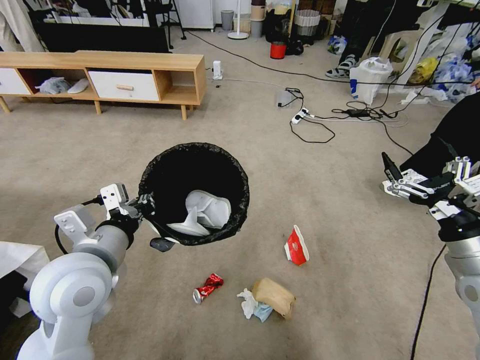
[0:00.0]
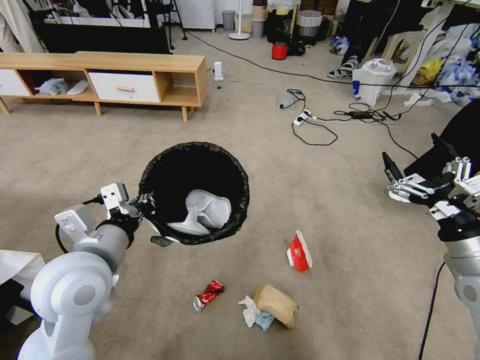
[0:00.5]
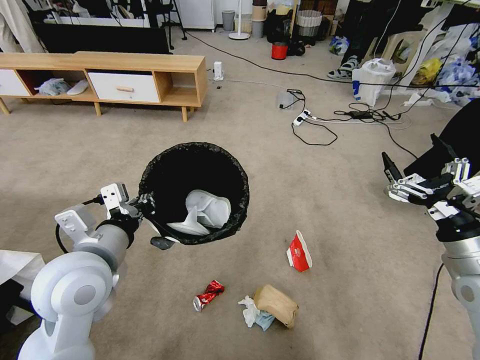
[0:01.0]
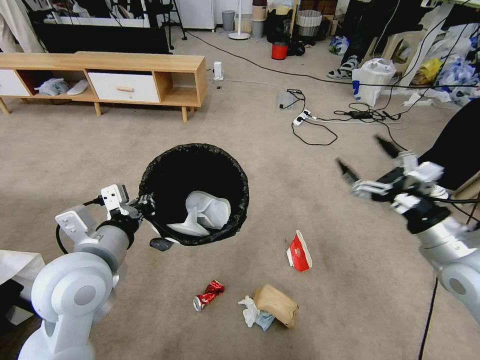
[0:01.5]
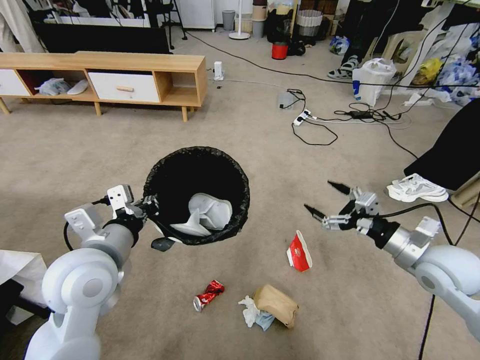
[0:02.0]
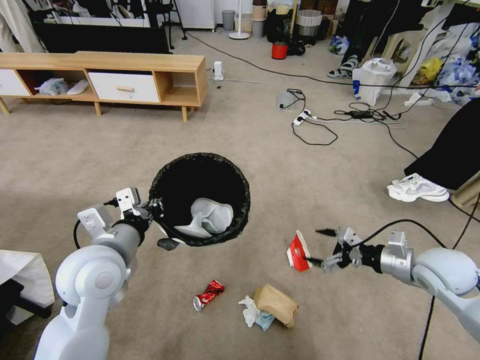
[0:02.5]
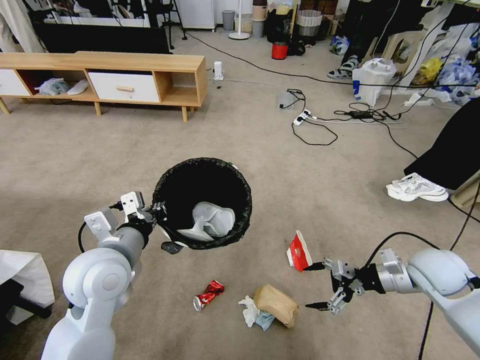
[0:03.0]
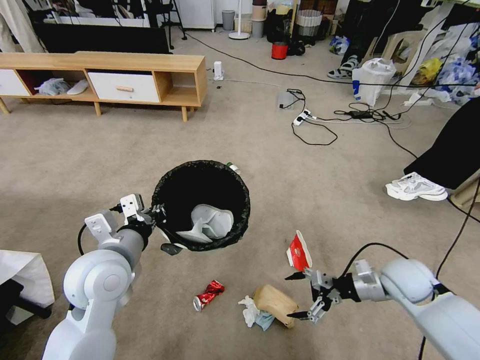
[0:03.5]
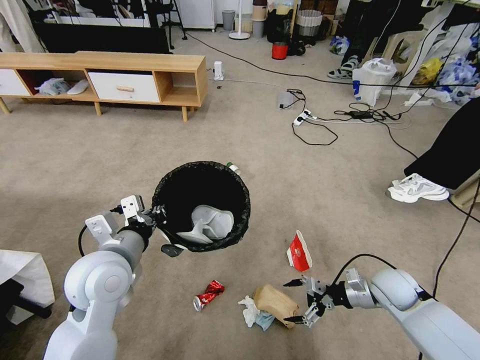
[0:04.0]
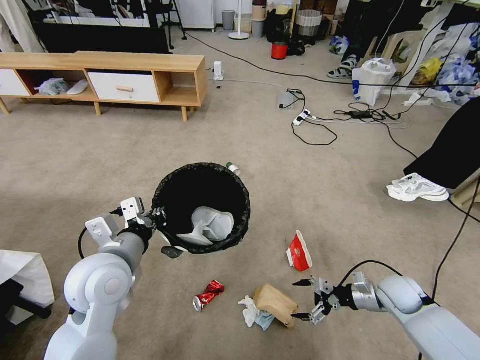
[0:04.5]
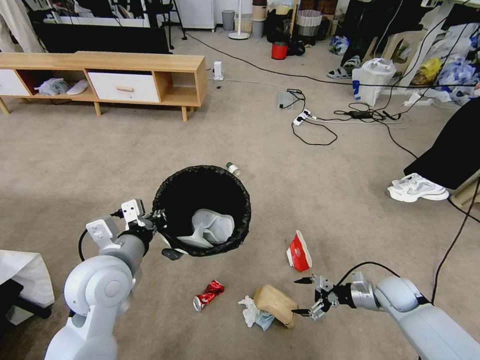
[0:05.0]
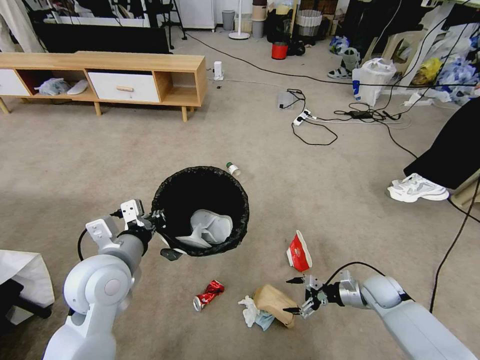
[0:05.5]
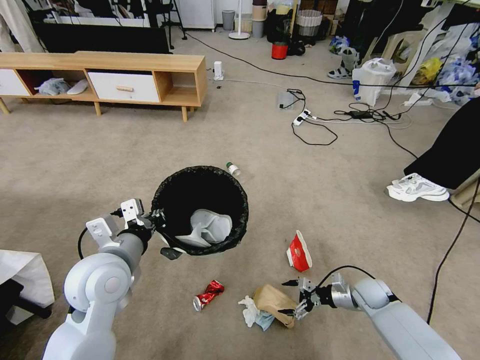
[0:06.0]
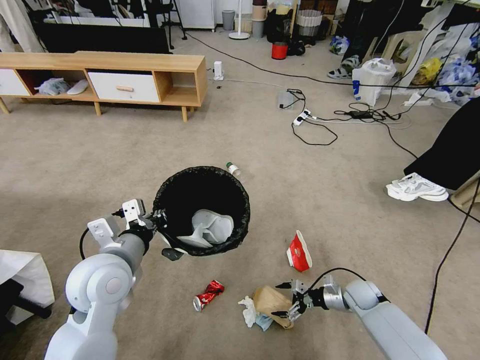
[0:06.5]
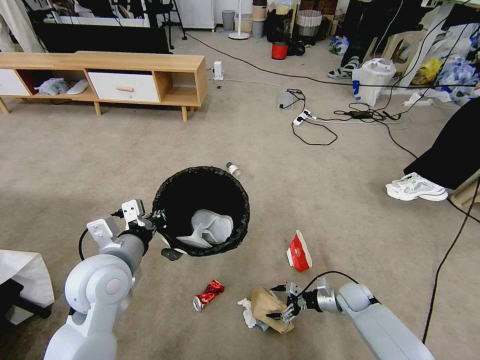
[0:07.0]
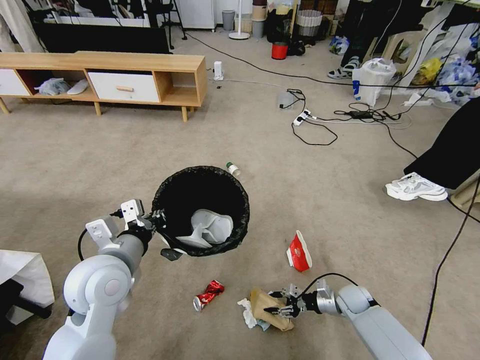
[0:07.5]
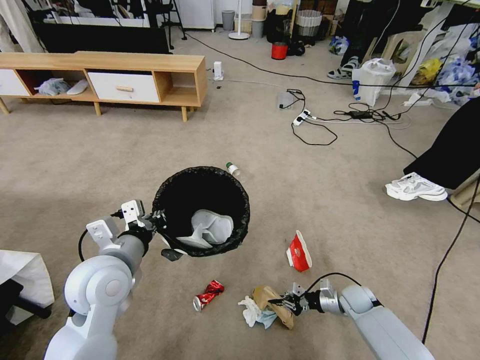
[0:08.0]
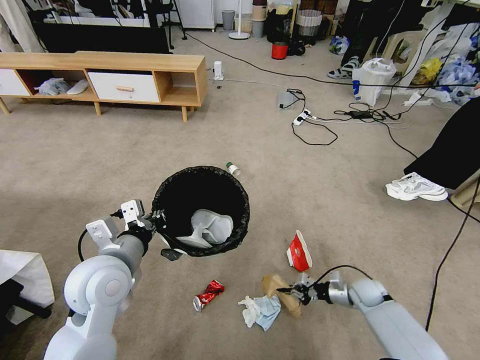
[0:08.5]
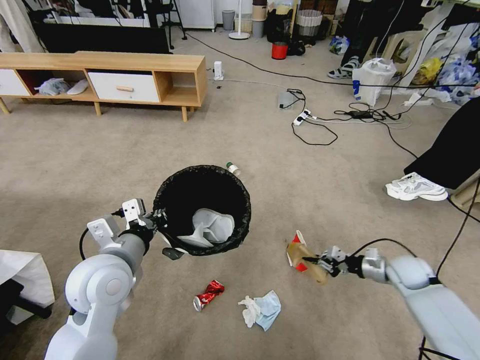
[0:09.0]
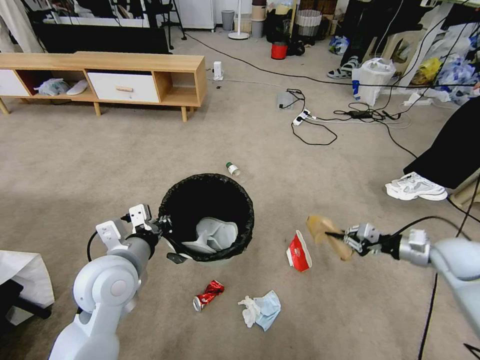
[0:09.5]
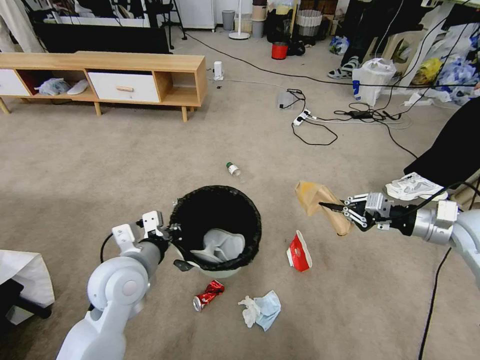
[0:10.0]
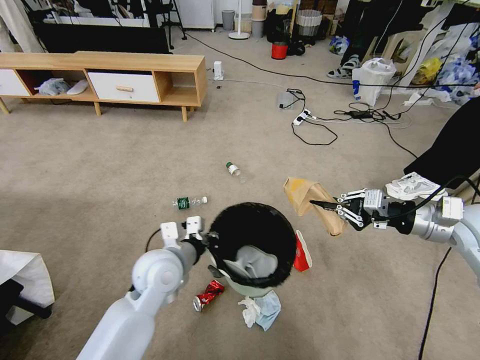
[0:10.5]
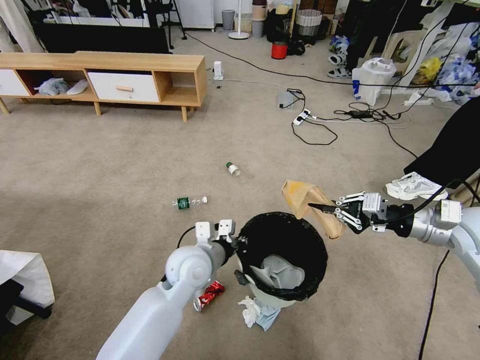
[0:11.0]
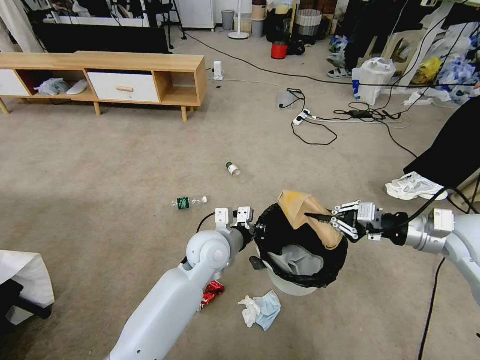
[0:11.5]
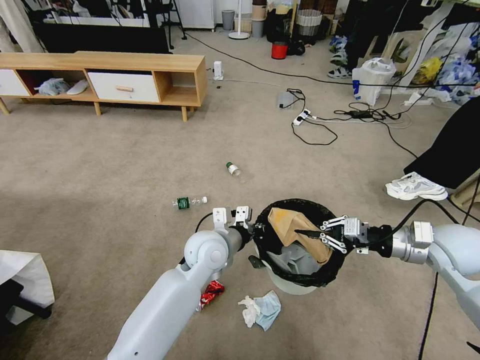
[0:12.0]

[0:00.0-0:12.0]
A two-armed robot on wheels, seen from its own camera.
Task of the whole recording: Pick up the trash bin and place the garbage on the floor into it.
0:00.0 to 0:02.0: The right gripper shifts roughly 5 cm forward.
0:02.0 to 0:04.0: The right gripper goes roughly 15 cm downward.
0:04.0 to 0:06.0: The right gripper shifts some 10 cm downward.
0:06.0 to 0:08.0: The right gripper closes its fingers.
0:08.0 to 0:10.0: The right gripper heads upward, covering about 35 cm.
0:10.0 to 0:12.0: The left gripper shifts roughly 15 cm to the right and forward. Meanwhile the right gripper moves approximately 5 cm.

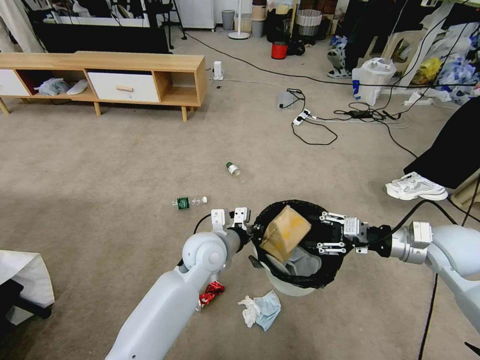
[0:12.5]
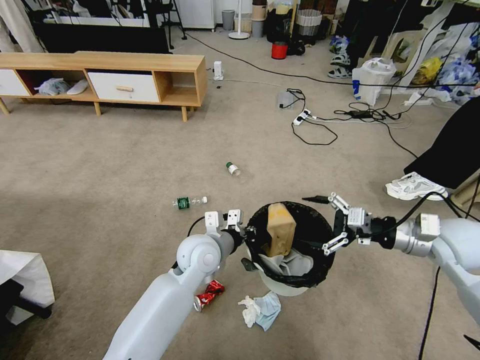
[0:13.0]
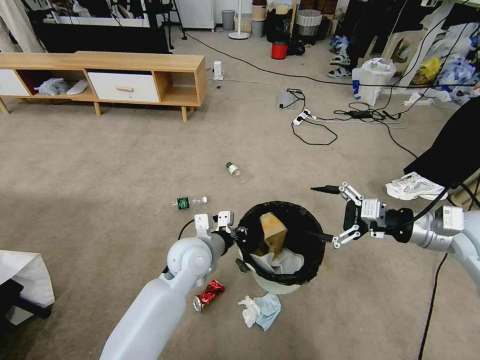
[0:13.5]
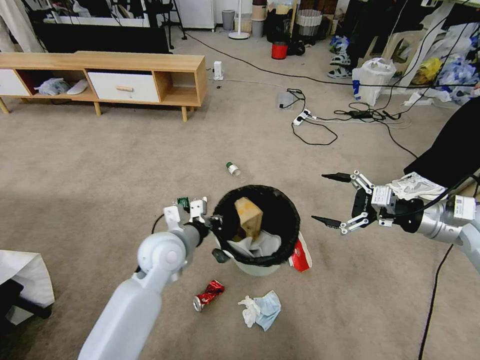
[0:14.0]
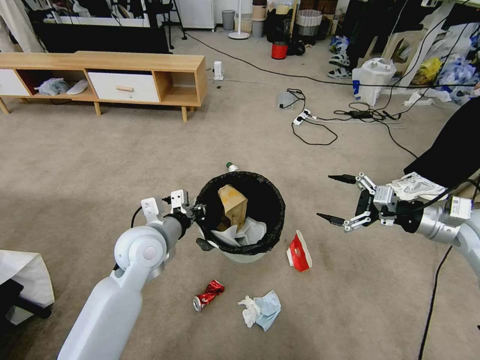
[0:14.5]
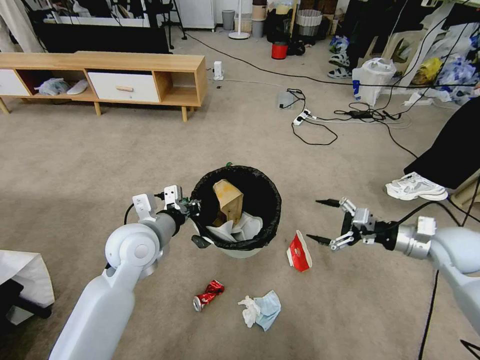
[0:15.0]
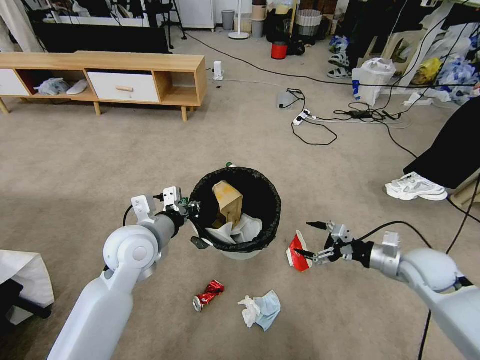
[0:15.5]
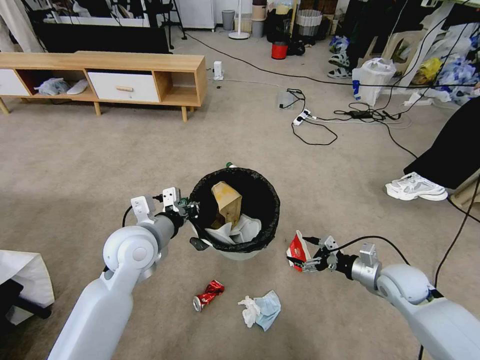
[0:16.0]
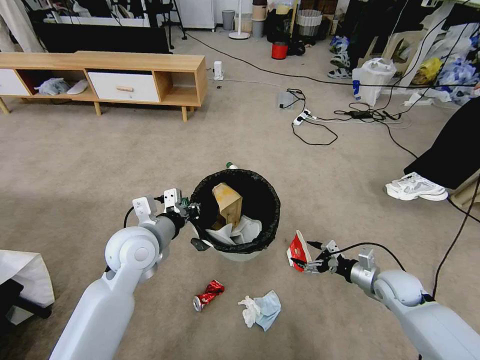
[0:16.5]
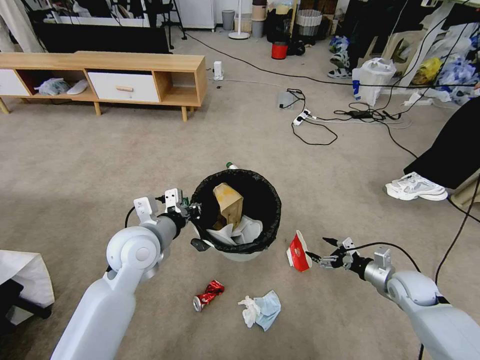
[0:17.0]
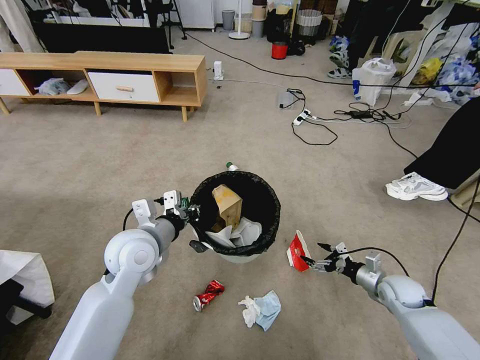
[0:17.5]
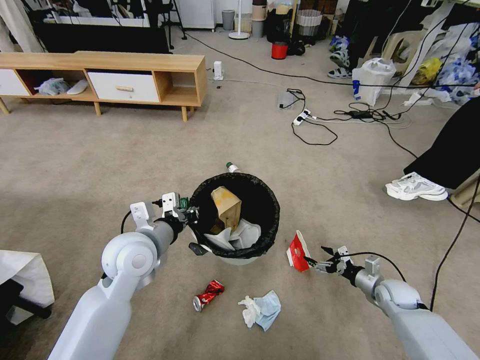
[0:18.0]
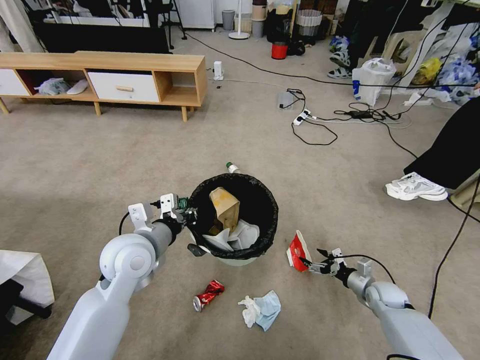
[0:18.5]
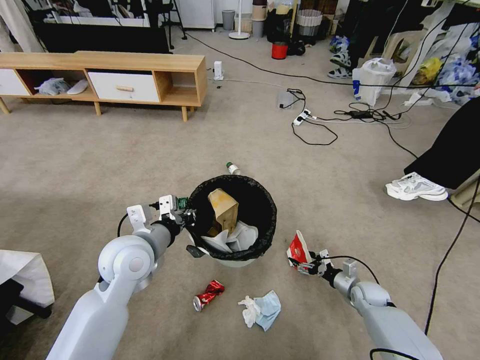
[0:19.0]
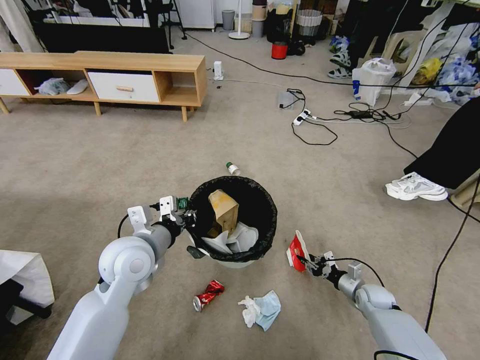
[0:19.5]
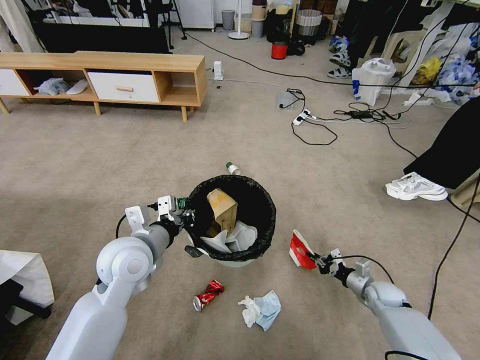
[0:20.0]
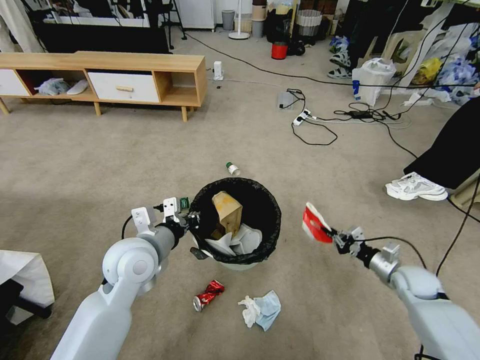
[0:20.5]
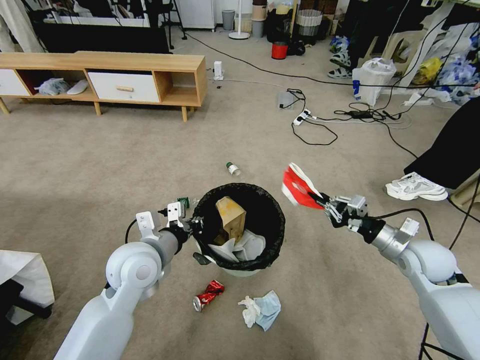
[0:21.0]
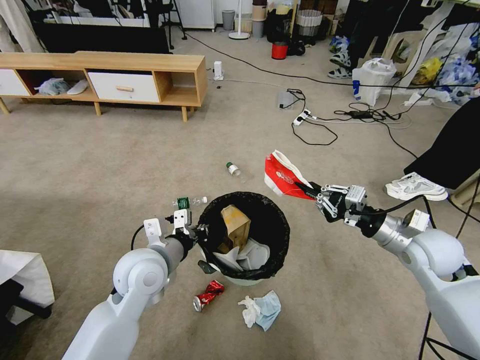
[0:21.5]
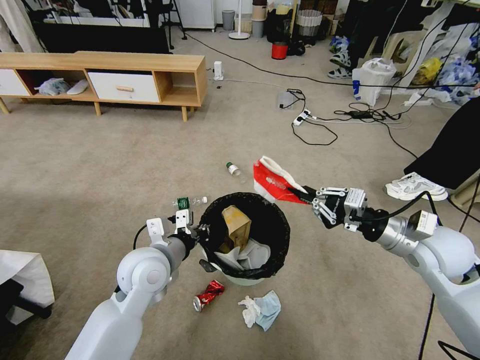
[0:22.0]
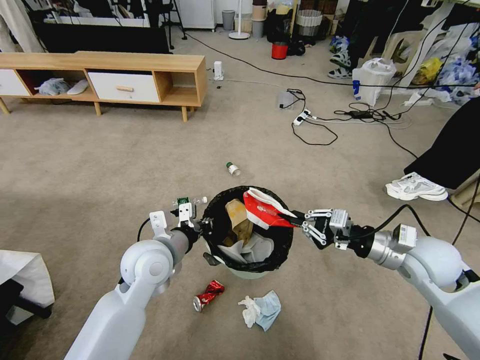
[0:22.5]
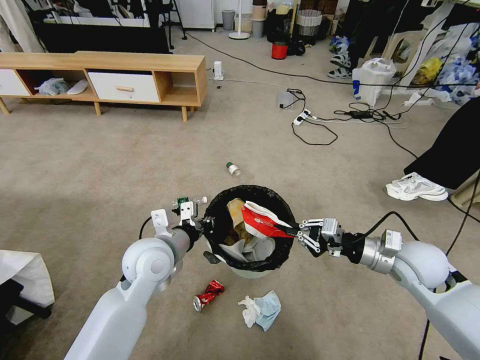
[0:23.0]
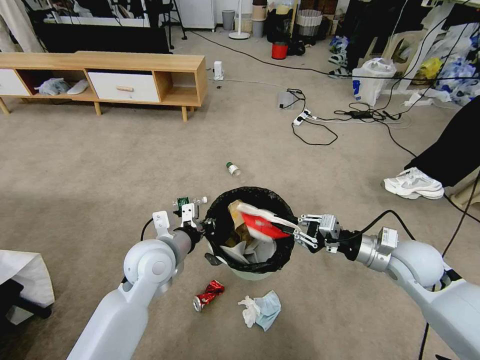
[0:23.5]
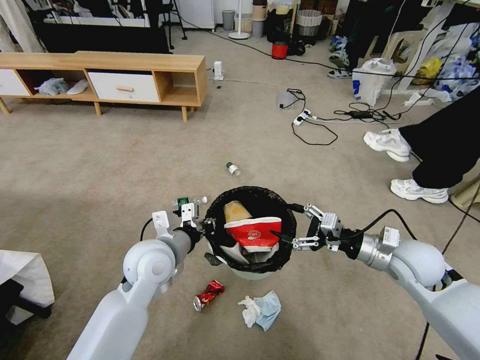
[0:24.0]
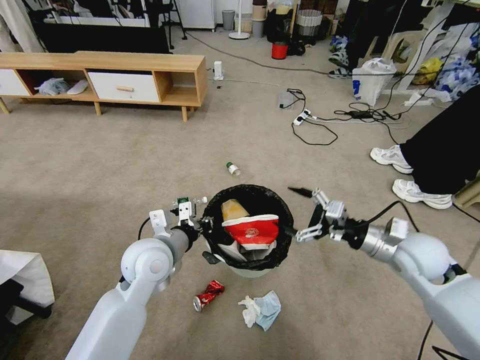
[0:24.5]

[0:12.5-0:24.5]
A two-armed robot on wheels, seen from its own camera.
Task of the whole recording: Pick up the trash bin and place the garbage on the floor into it.
0:12.5 to 0:14.5: The left gripper heads to the left, covering some 10 cm. The right gripper changes place by roughly 5 cm, and opens its fingers.
0:14.5 to 0:16.5: The right gripper is displaced downward by approximately 25 cm.
0:16.5 to 0:18.5: The right gripper shifts roughly 10 cm downward.
0:18.5 to 0:20.5: The right gripper heads upward, covering some 5 cm, and closes.
0:20.5 to 0:22.5: The right gripper shifts approximately 25 cm upward and to the left.
0:22.5 to 0:24.5: The right gripper opens its fingers.

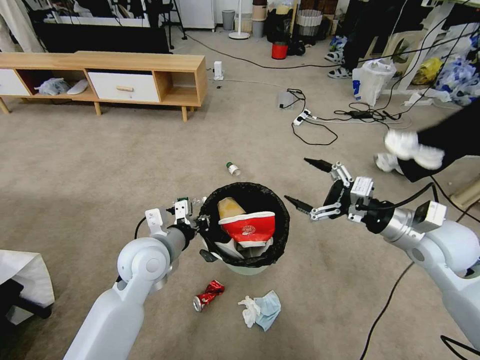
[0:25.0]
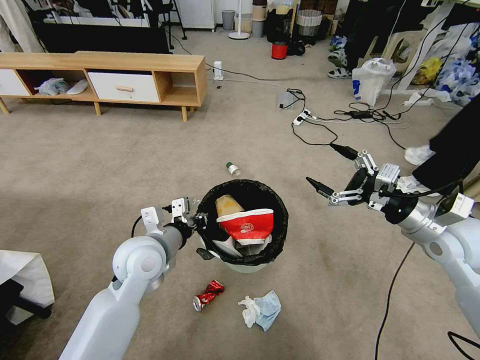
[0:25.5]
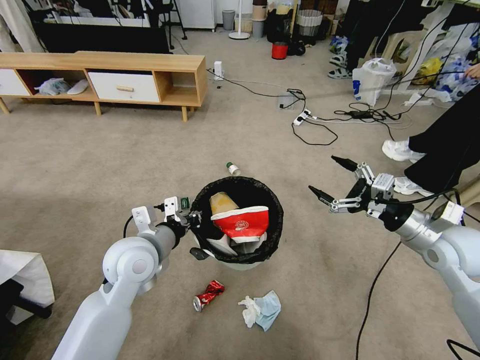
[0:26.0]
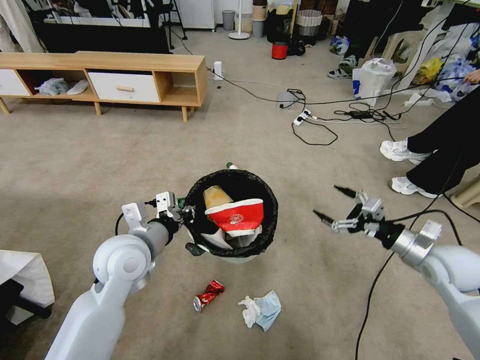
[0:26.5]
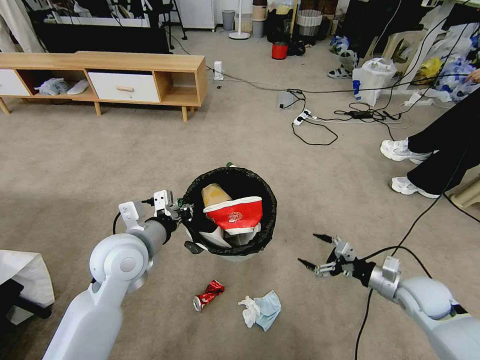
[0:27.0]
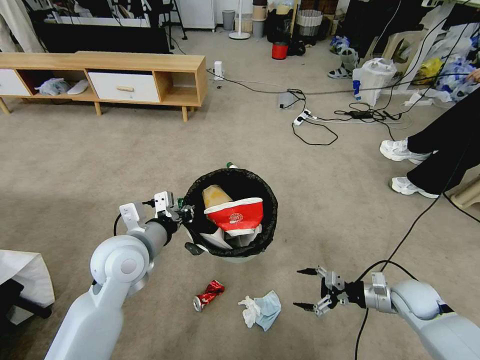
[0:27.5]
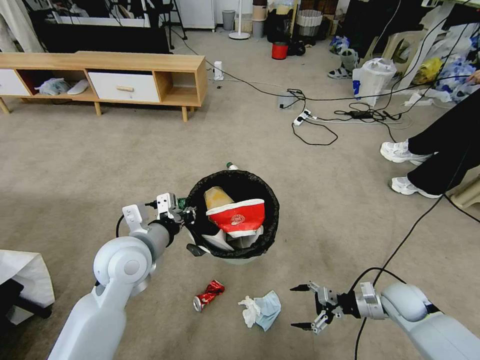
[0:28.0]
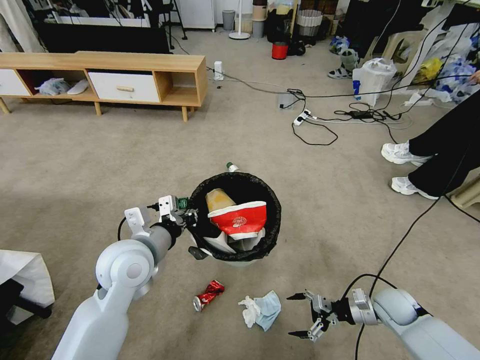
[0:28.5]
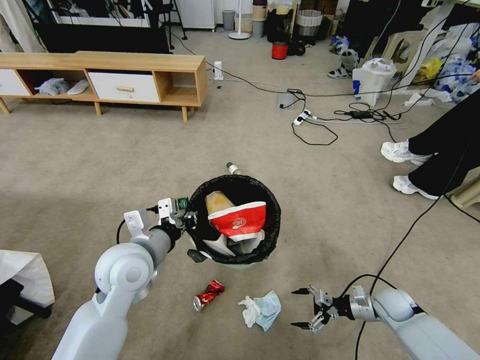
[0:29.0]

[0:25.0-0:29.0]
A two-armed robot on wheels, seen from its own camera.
Task of the whole recording: Pick up the trash bin and place the garbage on the floor into it.
0:25.0 to 0:27.0: The right gripper travels downward by roughly 20 cm.
0:27.0 to 0:29.0: The right gripper shifts about 10 cm downward.
